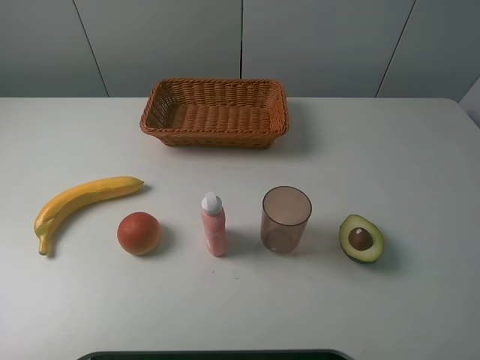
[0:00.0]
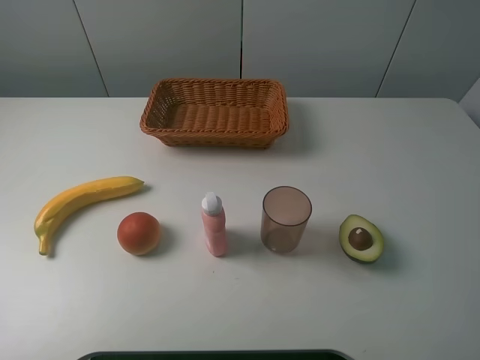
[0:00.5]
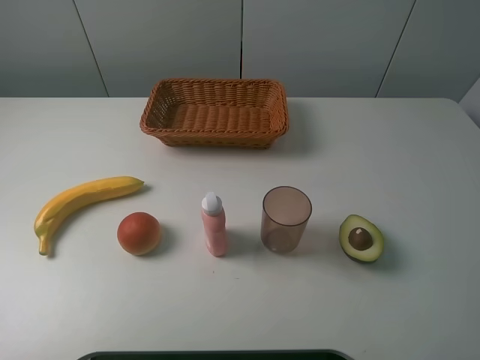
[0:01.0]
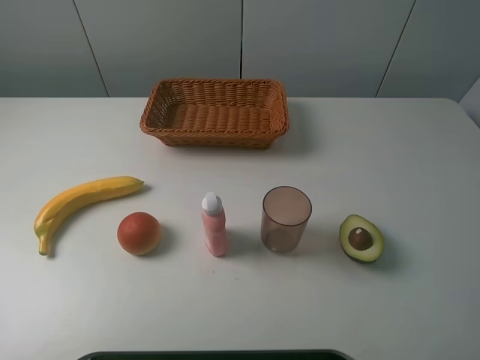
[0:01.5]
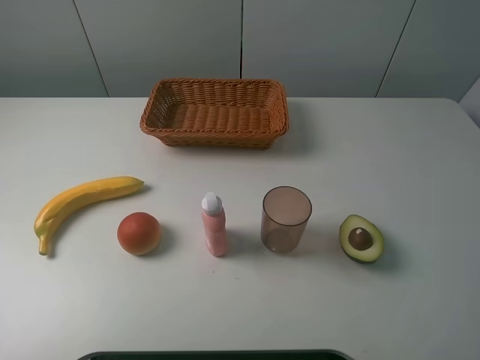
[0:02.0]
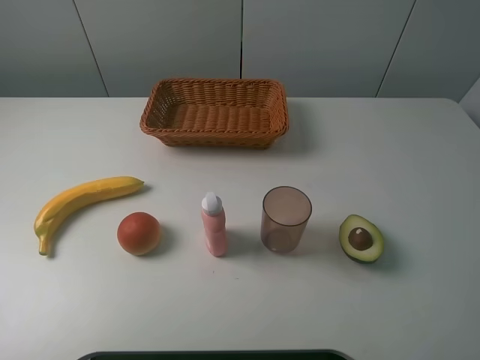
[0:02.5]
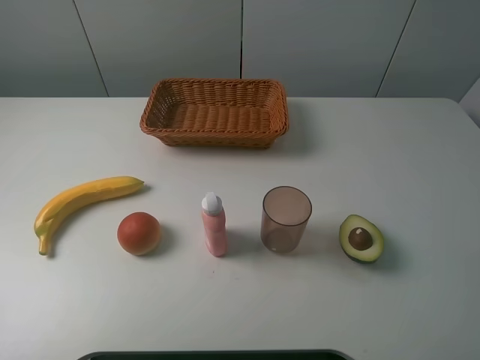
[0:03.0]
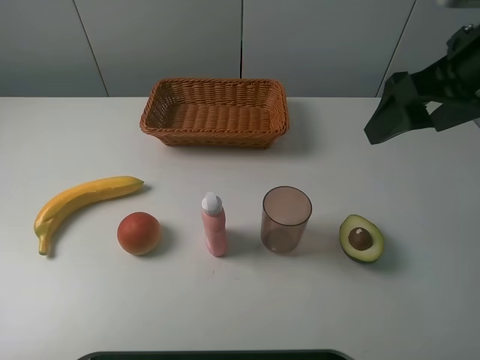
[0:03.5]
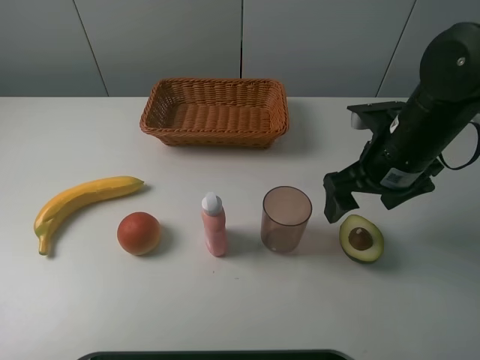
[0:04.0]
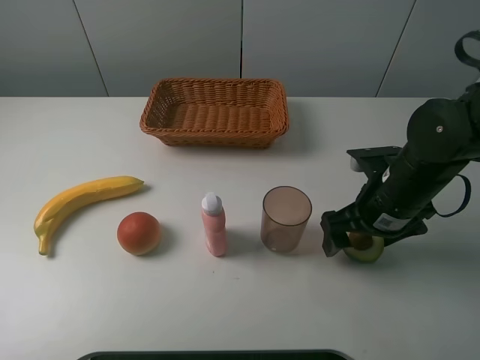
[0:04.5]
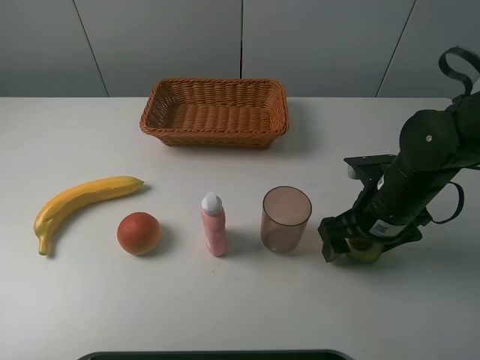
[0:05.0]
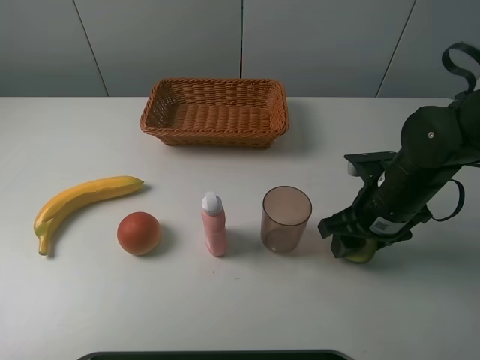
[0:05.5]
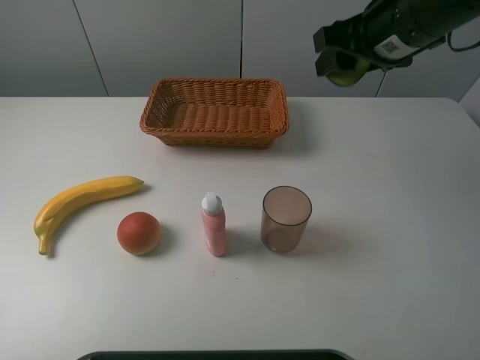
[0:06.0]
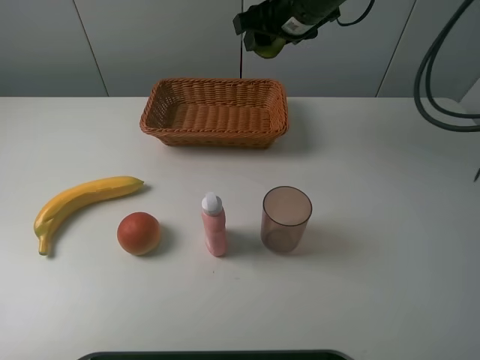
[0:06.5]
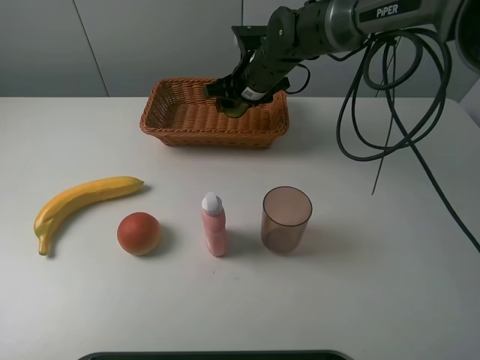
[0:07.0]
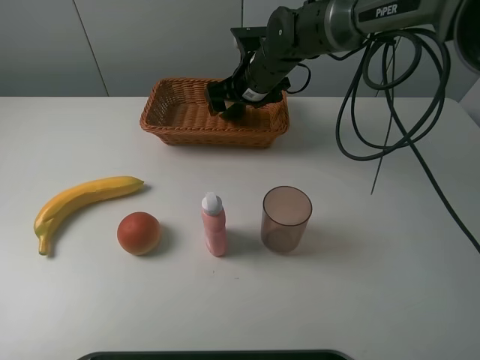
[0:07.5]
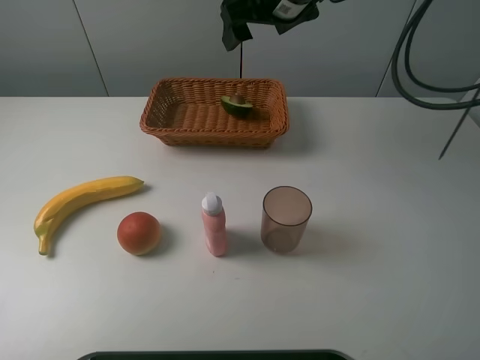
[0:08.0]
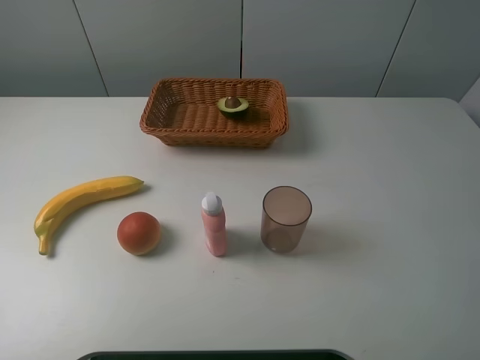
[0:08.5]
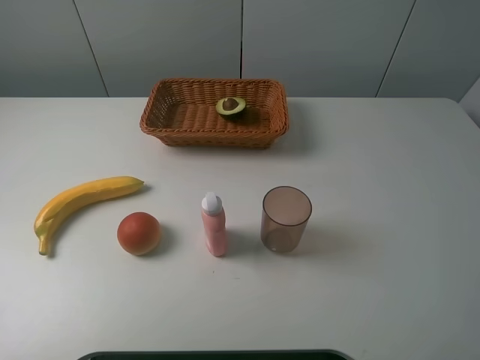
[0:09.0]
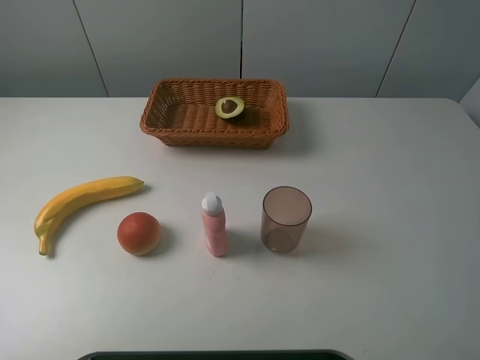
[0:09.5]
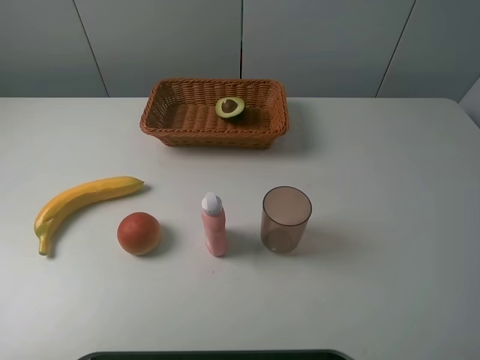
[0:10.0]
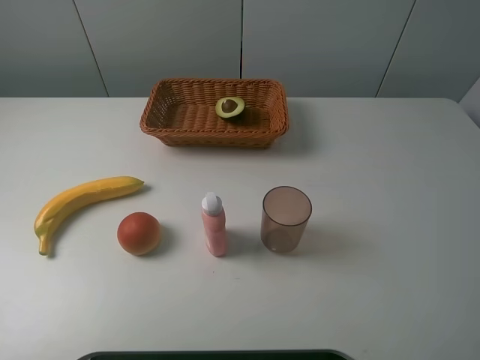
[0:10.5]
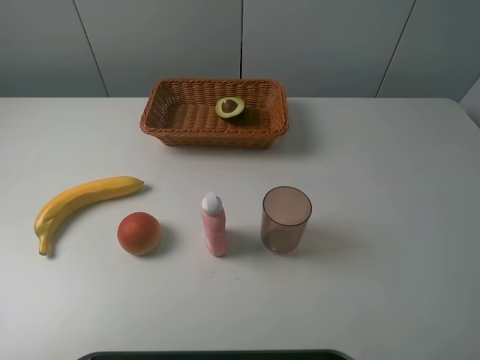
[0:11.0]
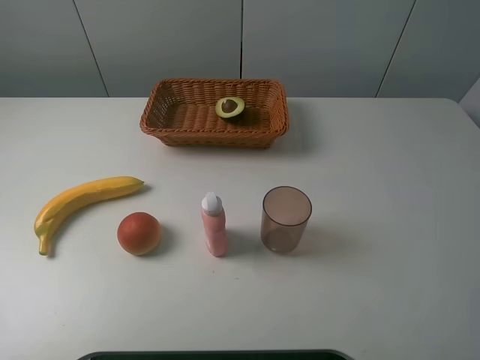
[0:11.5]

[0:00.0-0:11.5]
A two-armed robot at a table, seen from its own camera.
Task of the whole recording: randomly pick up an item from the table and put it in the basket.
Step, 0:00.0 to 0:05.0: Grasp the avocado with the right gripper.
Step, 0:05.5 to 0:08.0: Place the avocado into the basket with the right gripper.
0:00.0 to 0:02.0: The two grippers keep their place.
0:02.0 to 0:04.0: The right gripper moves forward and downward, approximately 25 cm.
0:04.0 to 0:06.0: The right gripper is displaced upward and forward by some 15 cm, and closes up.
0:06.0 to 0:07.5: The right gripper shifts approximately 25 cm downward, forward and to the left, and opens up.
0:07.5 to 0:09.5: The right gripper is displaced backward and to the right by about 50 cm.
